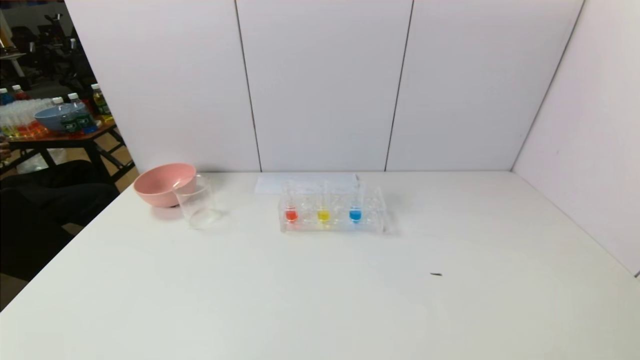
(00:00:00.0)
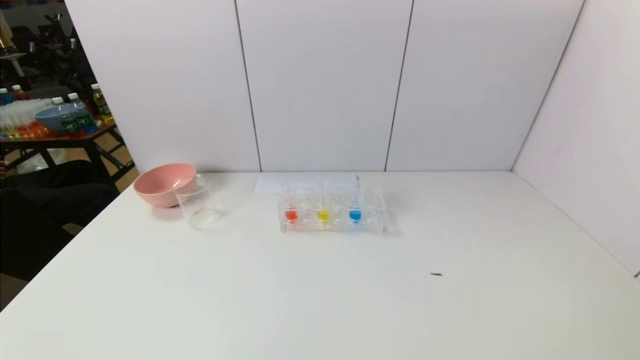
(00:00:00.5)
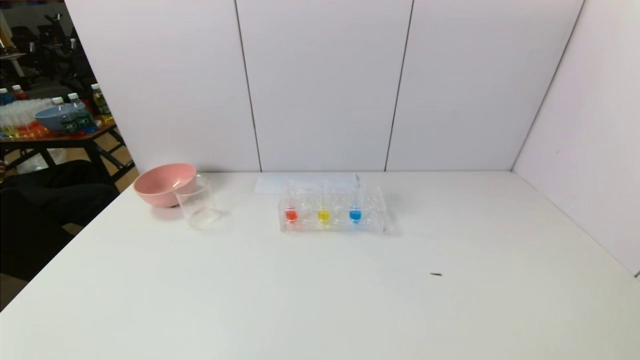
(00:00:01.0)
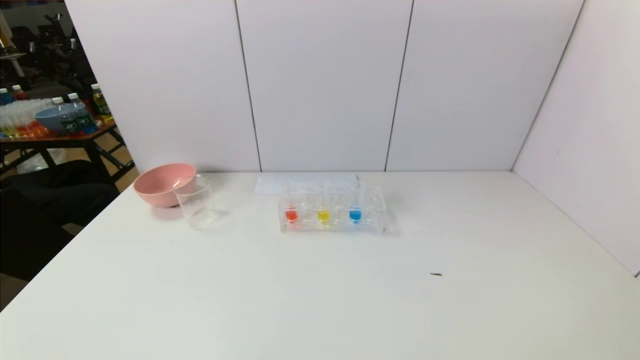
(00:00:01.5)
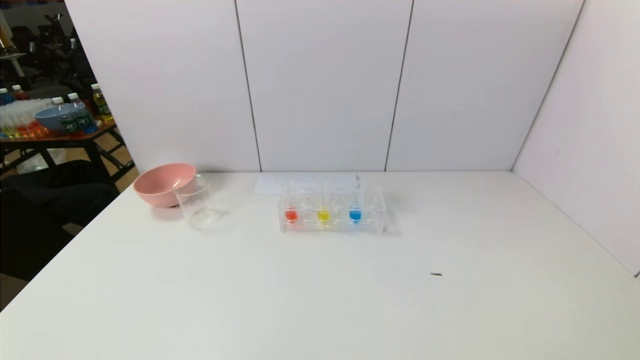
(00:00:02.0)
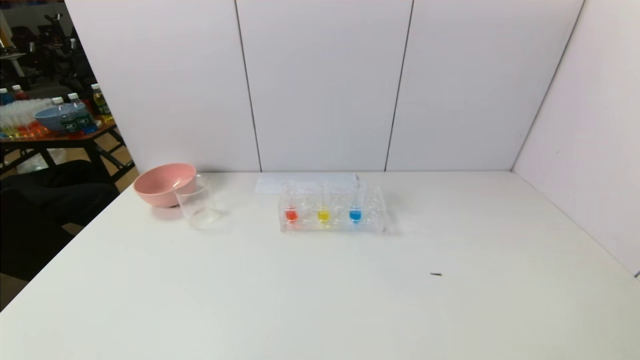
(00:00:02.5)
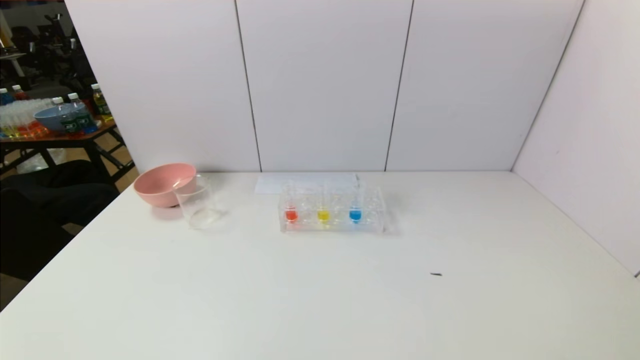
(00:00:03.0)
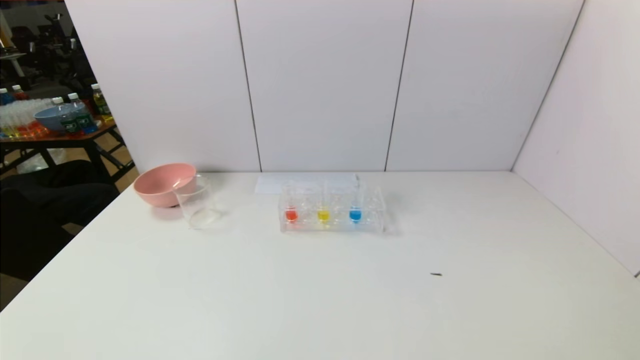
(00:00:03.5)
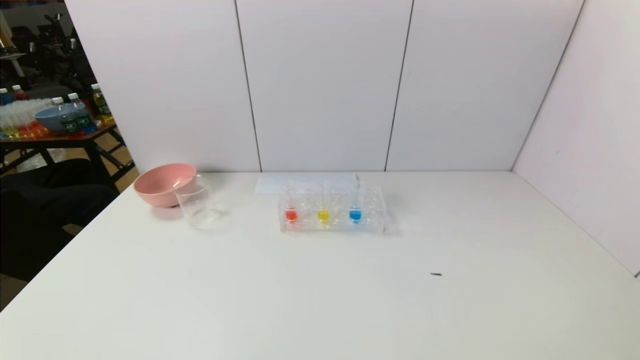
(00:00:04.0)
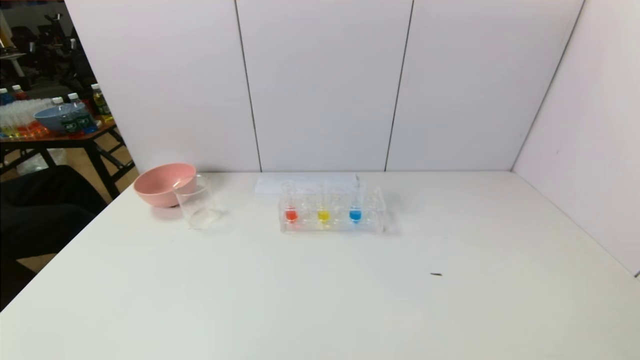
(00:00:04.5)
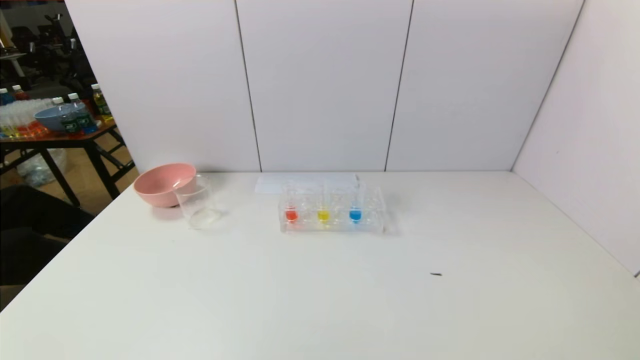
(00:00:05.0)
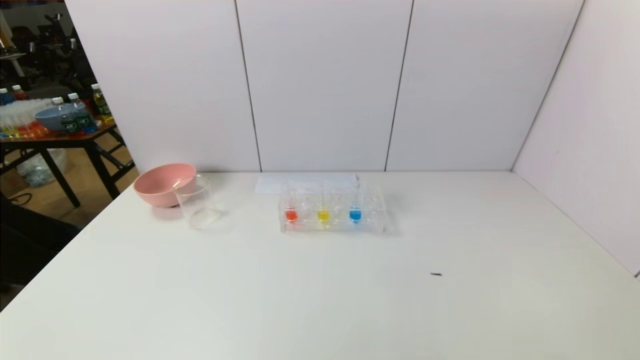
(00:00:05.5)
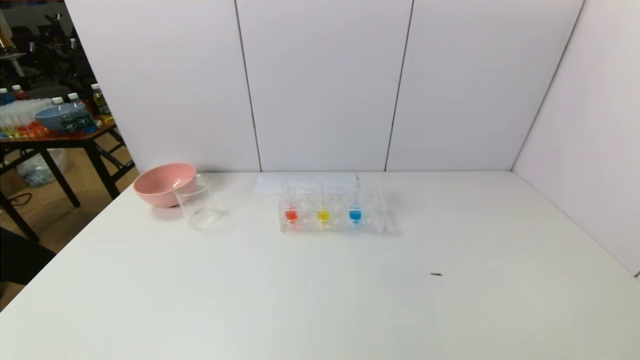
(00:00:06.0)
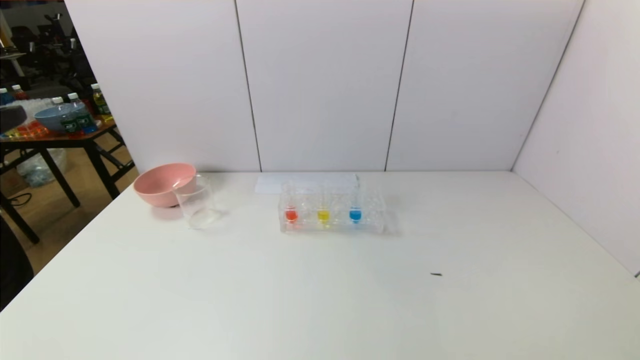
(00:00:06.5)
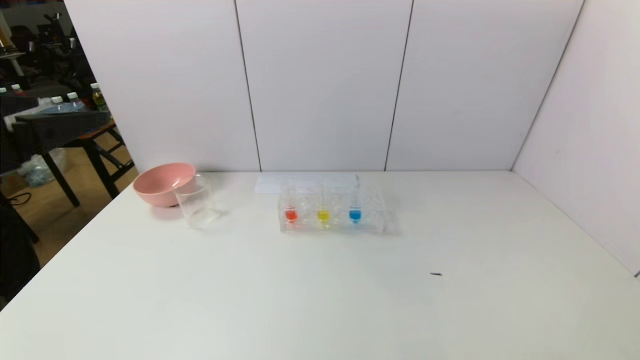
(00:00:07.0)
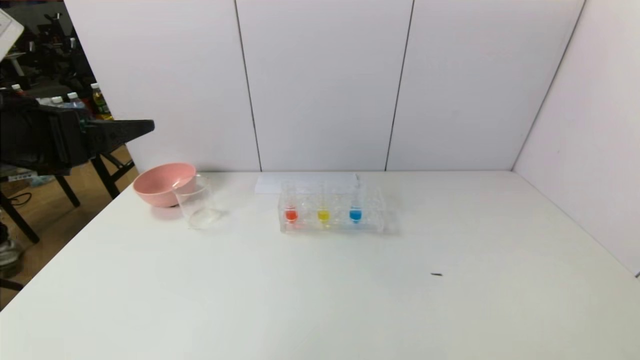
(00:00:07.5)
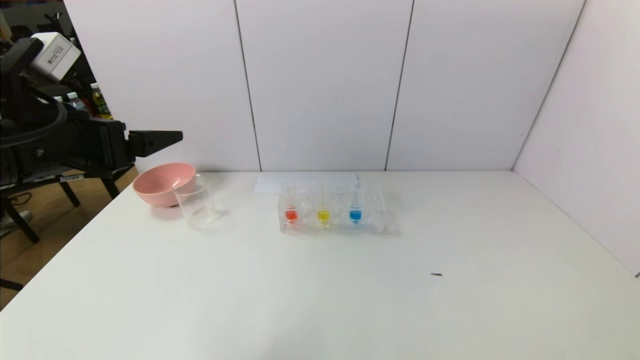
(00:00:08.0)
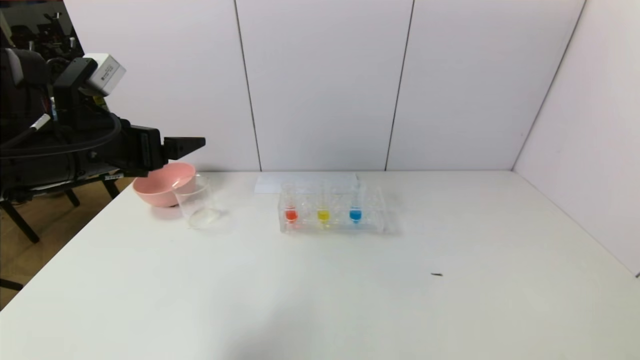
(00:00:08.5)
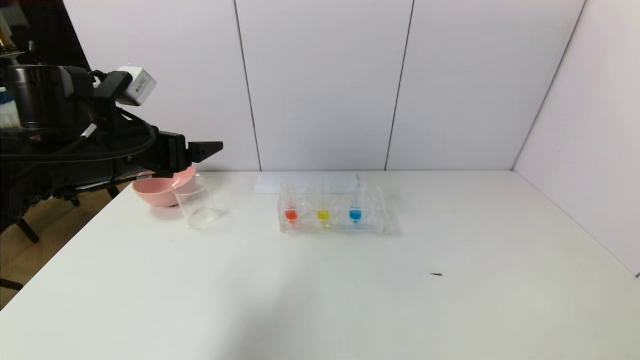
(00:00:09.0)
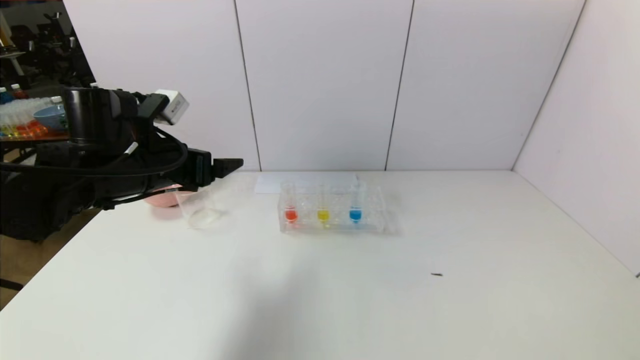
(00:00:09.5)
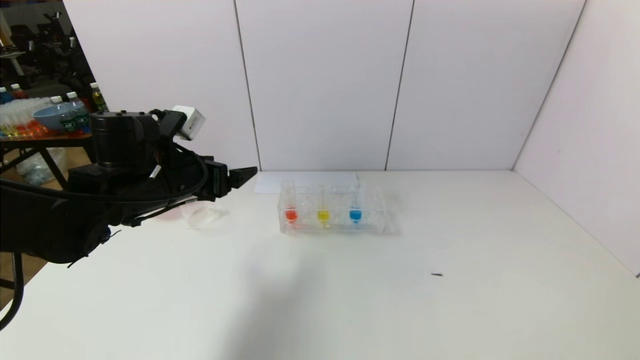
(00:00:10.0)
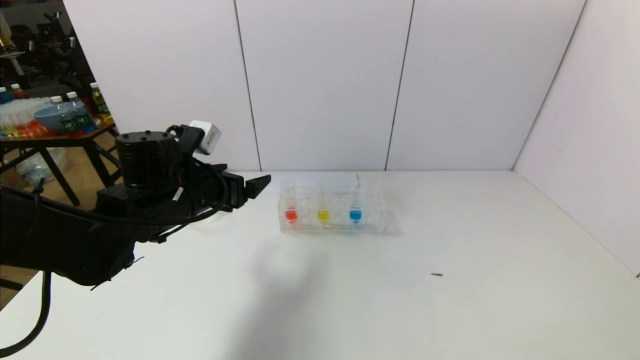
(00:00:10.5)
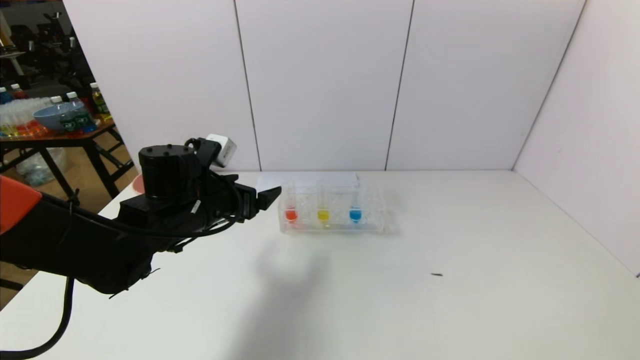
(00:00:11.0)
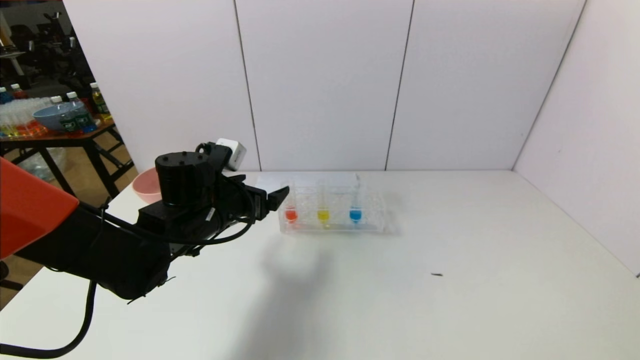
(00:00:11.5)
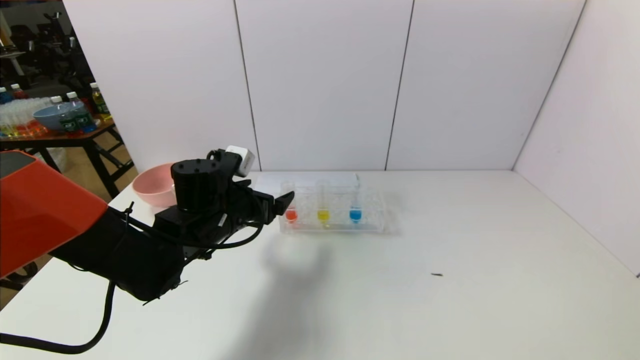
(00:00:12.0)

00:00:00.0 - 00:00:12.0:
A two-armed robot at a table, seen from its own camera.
Task of the whole recording: pick up the test tube with yellow pigment and the test tube with red pigment by grippers and pour them into the beaker.
00:00:00.0 - 00:00:04.0: Both grippers stay about where they are.
00:00:04.0 - 00:00:06.0: The left gripper moves upward, about 25 cm.
00:00:06.0 - 00:00:08.0: The left gripper travels forward by about 20 cm.
00:00:08.0 - 00:00:10.0: The left gripper goes roughly 15 cm downward, forward and to the right.
00:00:10.0 - 00:00:12.0: The left gripper moves downward and to the right, approximately 10 cm.

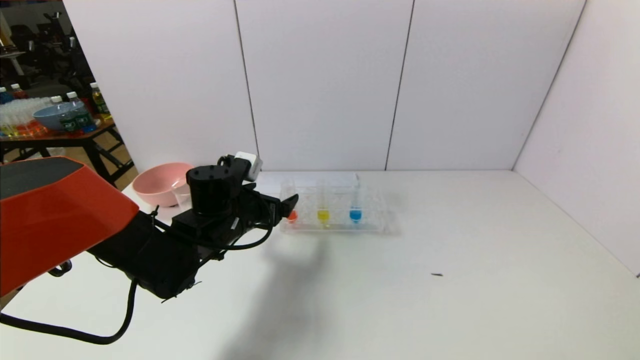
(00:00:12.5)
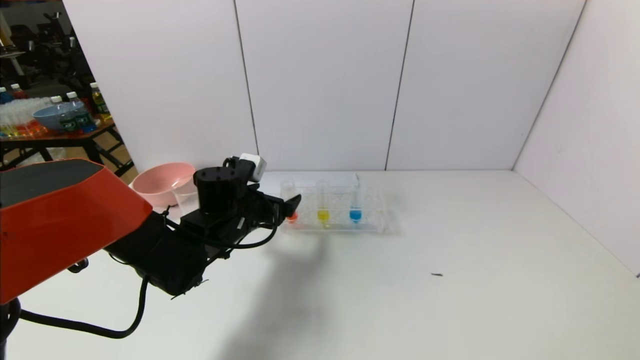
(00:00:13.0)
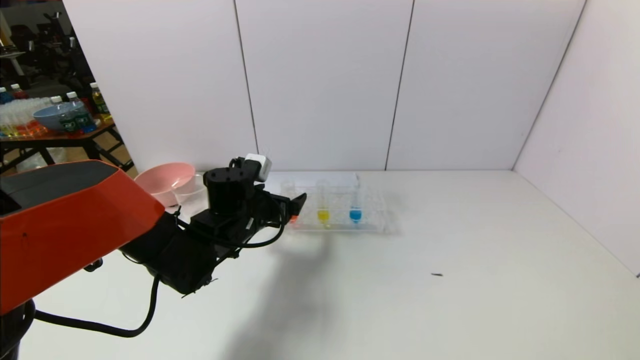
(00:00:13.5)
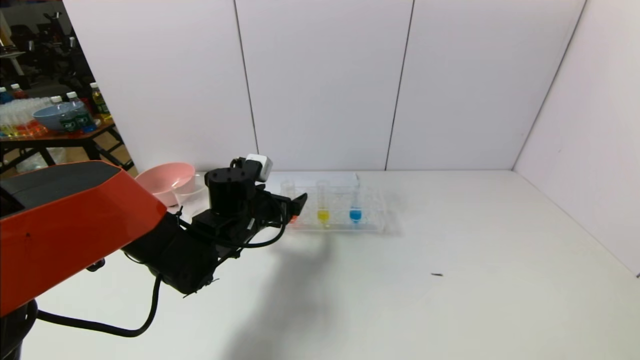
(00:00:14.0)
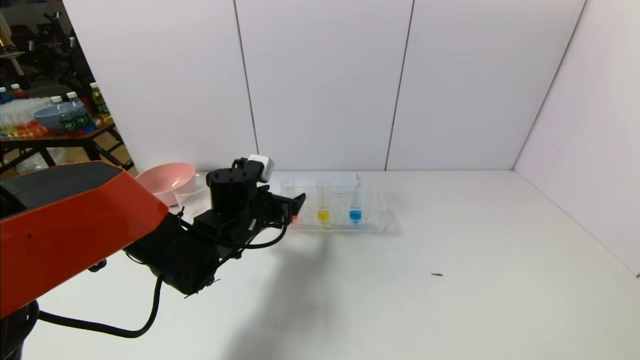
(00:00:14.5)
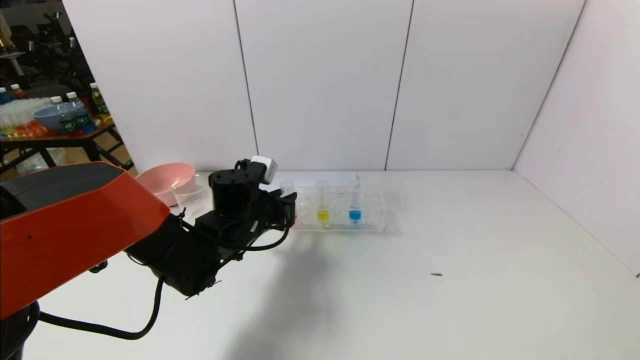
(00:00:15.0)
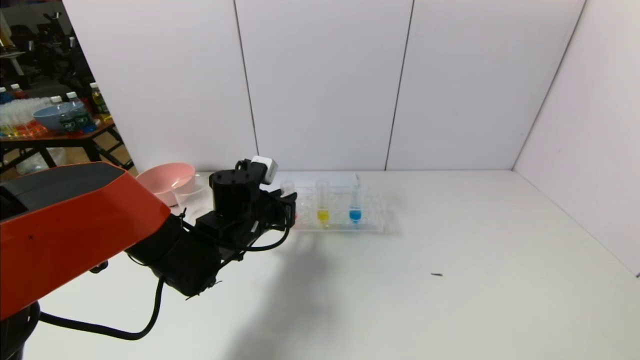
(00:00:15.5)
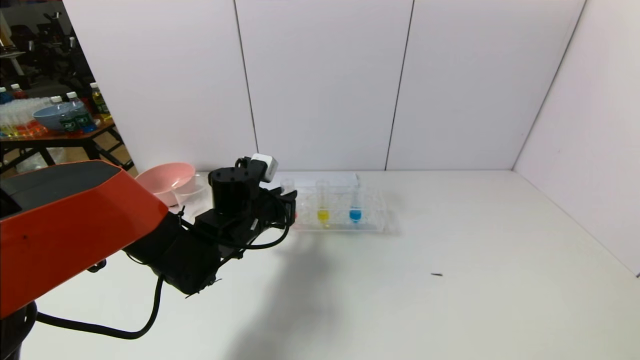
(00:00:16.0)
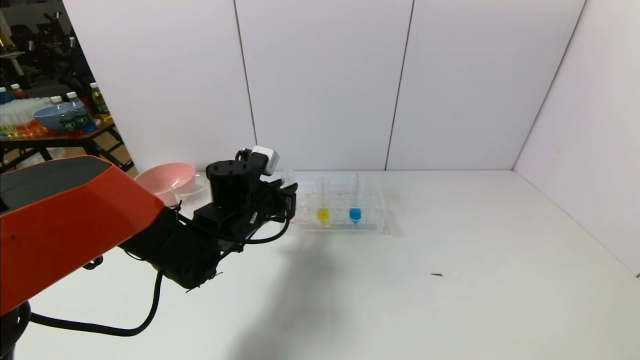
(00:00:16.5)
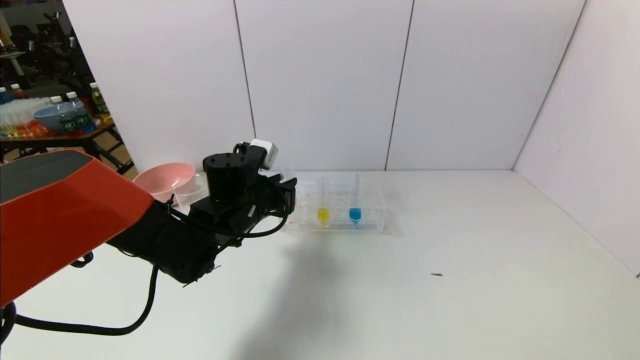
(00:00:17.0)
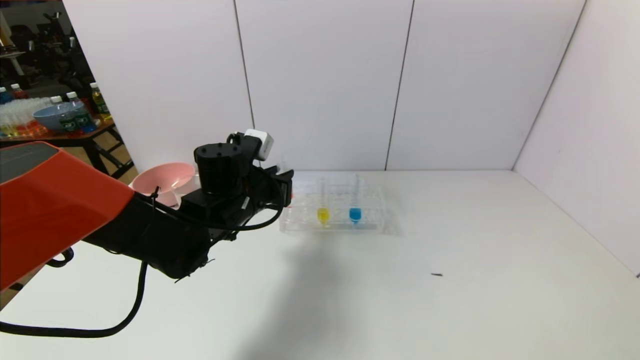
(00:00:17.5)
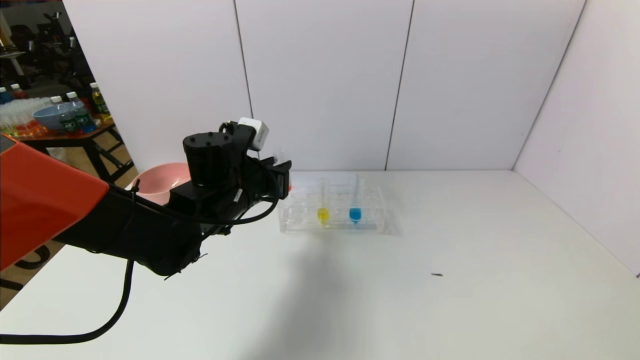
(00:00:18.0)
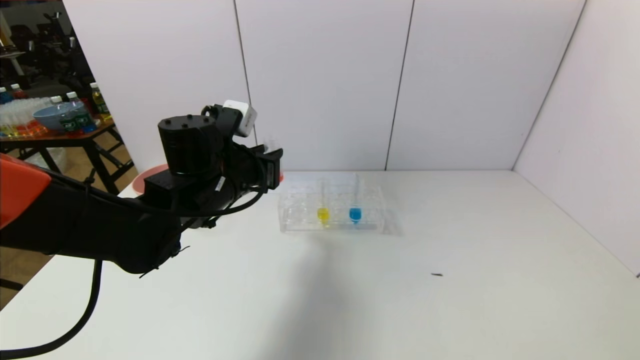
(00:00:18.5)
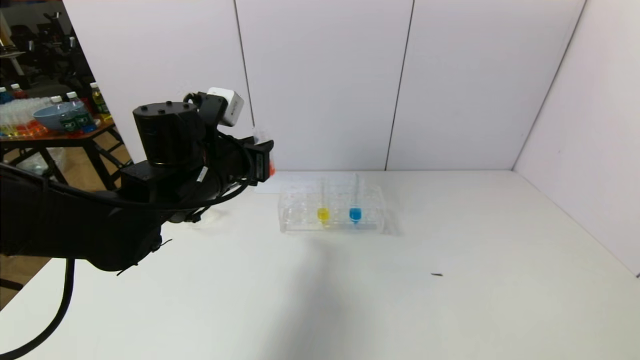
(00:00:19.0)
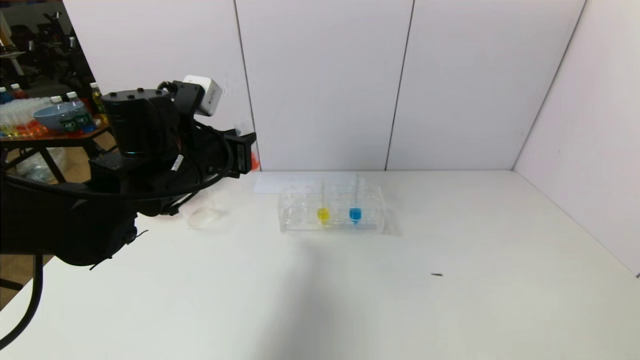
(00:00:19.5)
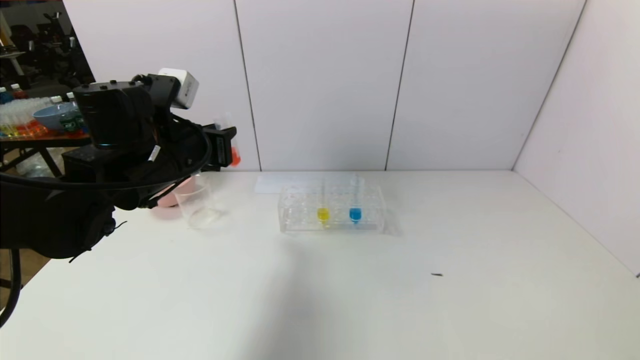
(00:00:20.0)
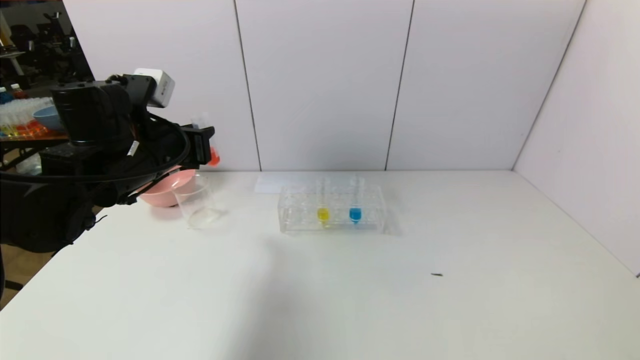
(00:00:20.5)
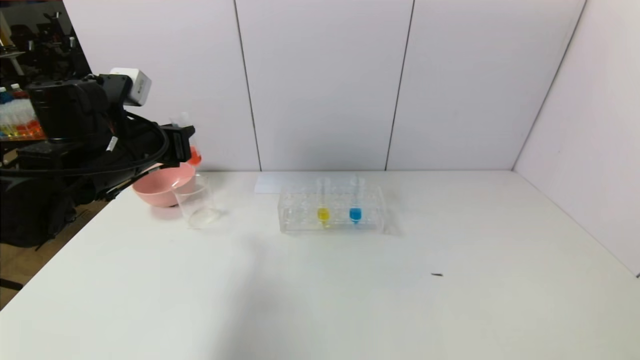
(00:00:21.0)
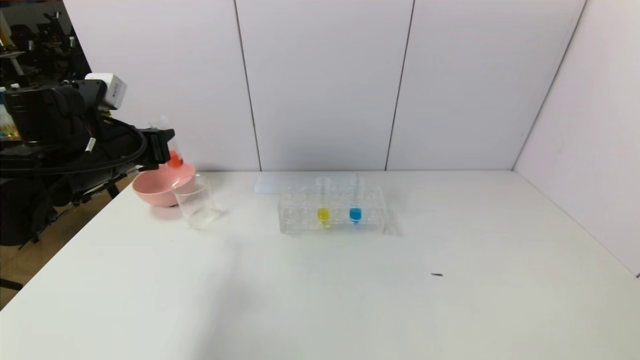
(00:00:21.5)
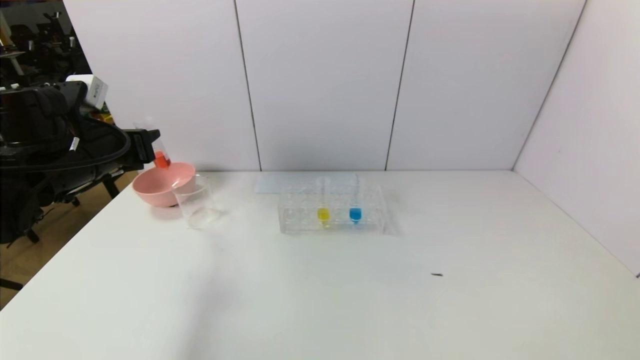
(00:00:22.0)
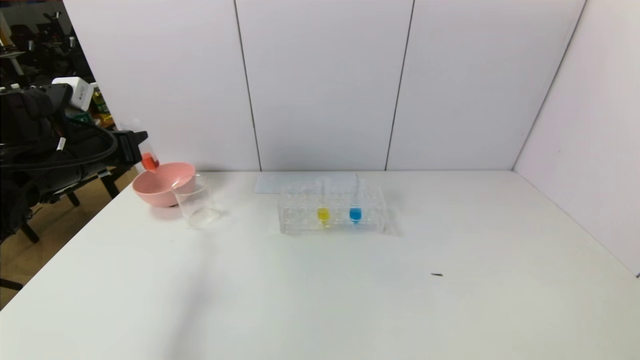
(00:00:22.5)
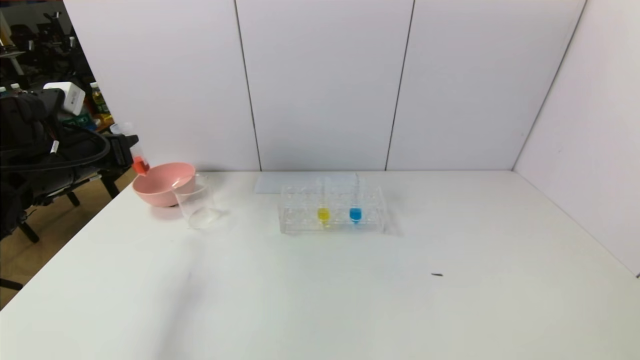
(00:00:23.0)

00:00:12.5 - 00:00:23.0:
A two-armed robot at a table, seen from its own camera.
Task of the whole recording: pick up the test tube with yellow pigment and the test tube with red pigment by grippers and pour them into the beaker.
Step, 00:00:12.5 - 00:00:15.5: Grasp the red reagent with the left gripper.
00:00:12.5 - 00:00:14.5: The grippers make only small movements.
00:00:14.5 - 00:00:16.5: The left gripper closes up.
00:00:16.5 - 00:00:19.0: The left gripper moves upward, roughly 10 cm.
00:00:19.0 - 00:00:21.0: The left gripper goes about 10 cm to the left.
00:00:21.0 - 00:00:23.0: The left gripper moves to the left, approximately 10 cm.
